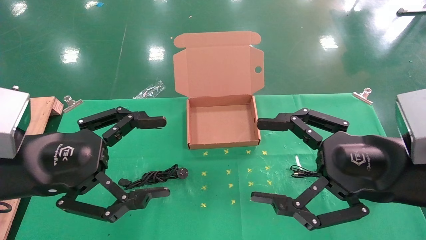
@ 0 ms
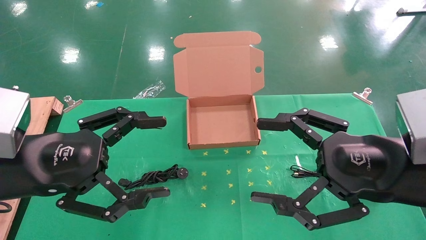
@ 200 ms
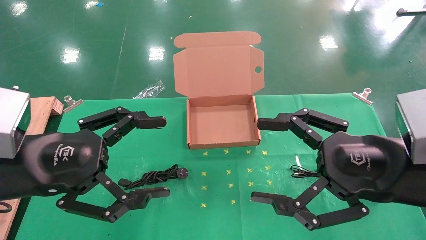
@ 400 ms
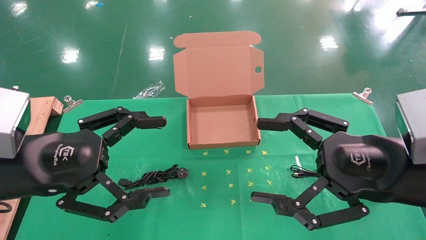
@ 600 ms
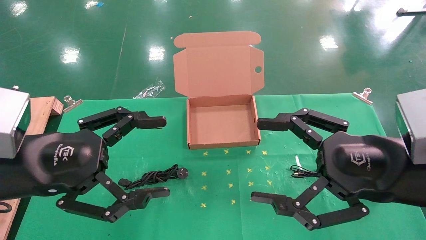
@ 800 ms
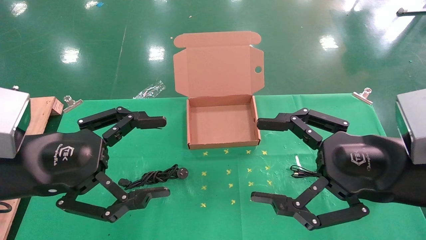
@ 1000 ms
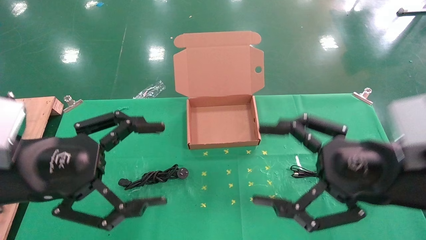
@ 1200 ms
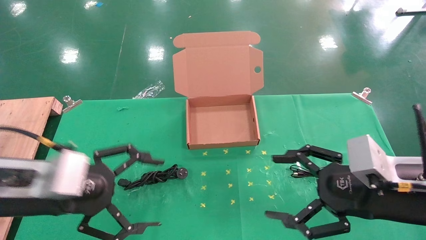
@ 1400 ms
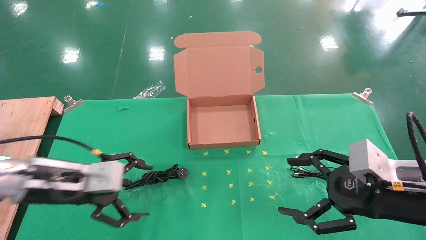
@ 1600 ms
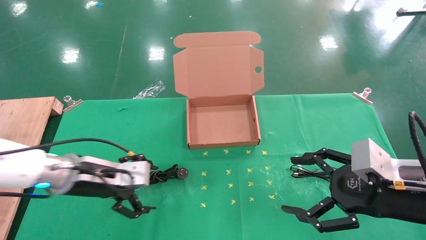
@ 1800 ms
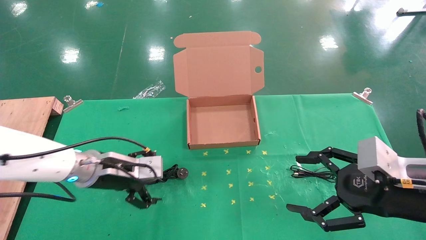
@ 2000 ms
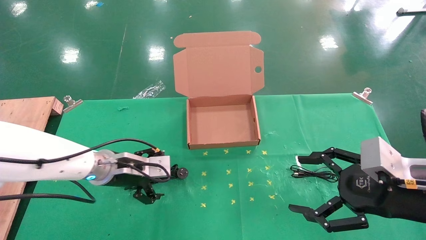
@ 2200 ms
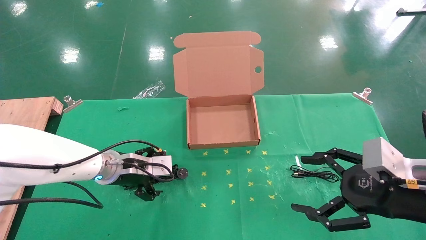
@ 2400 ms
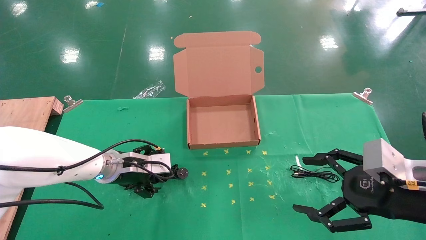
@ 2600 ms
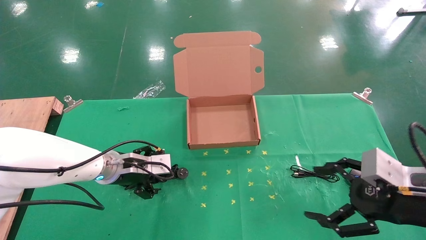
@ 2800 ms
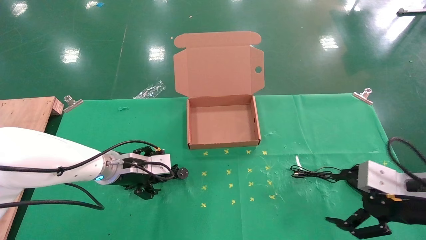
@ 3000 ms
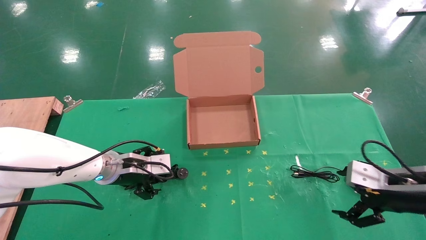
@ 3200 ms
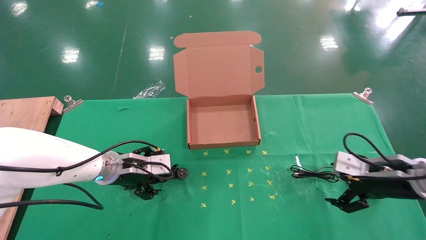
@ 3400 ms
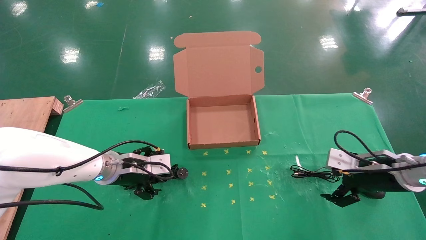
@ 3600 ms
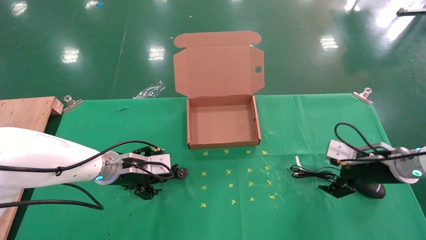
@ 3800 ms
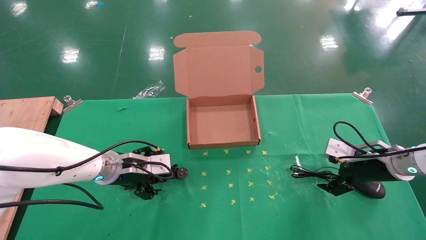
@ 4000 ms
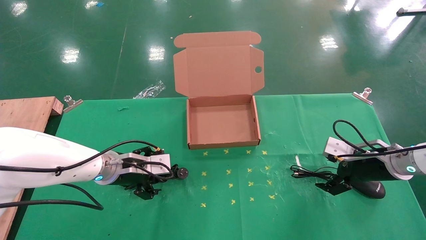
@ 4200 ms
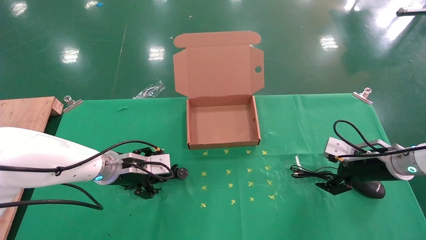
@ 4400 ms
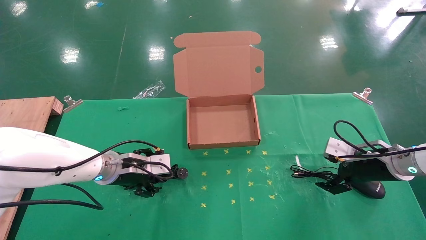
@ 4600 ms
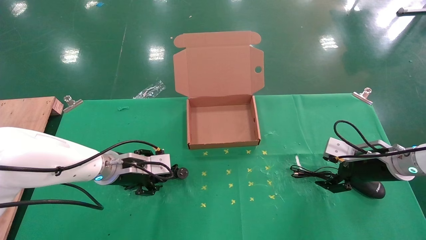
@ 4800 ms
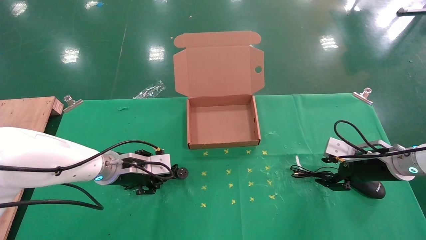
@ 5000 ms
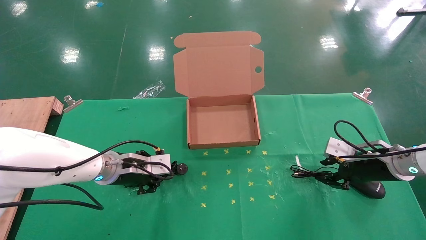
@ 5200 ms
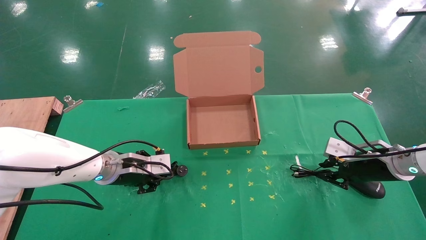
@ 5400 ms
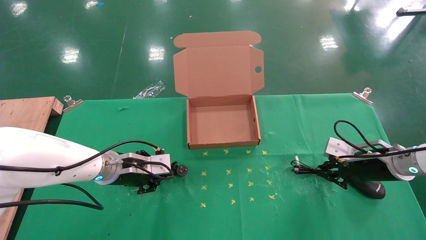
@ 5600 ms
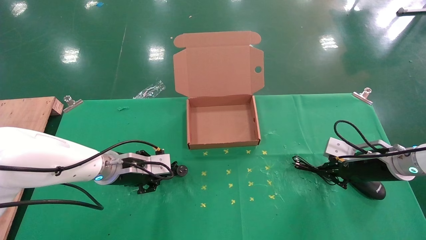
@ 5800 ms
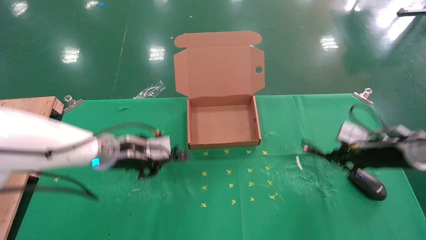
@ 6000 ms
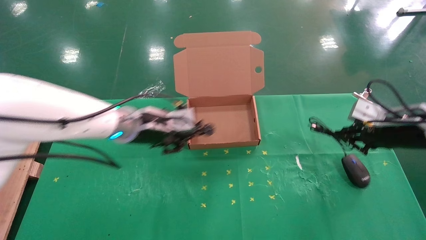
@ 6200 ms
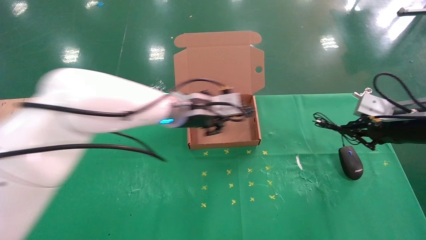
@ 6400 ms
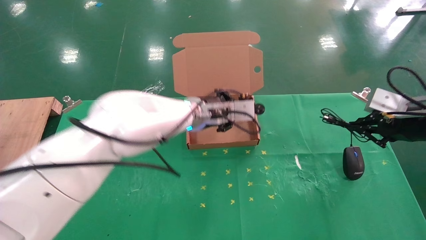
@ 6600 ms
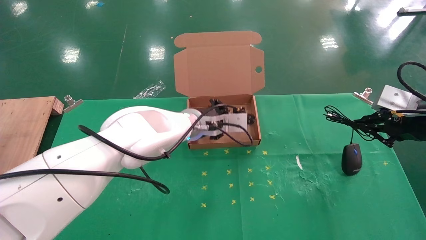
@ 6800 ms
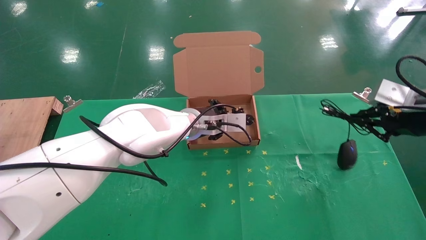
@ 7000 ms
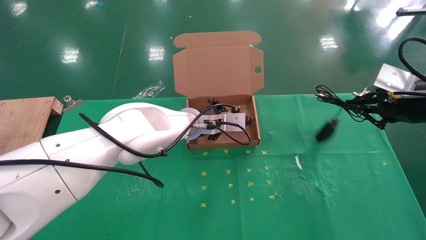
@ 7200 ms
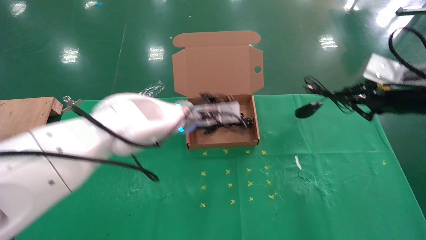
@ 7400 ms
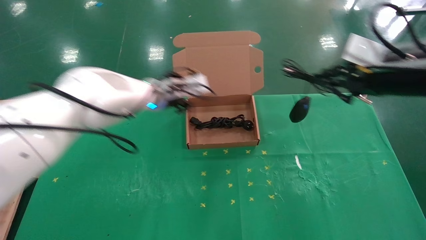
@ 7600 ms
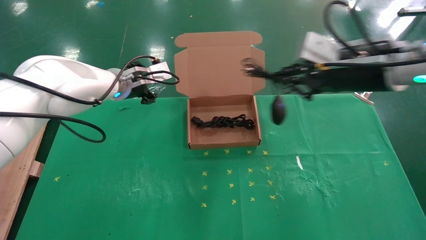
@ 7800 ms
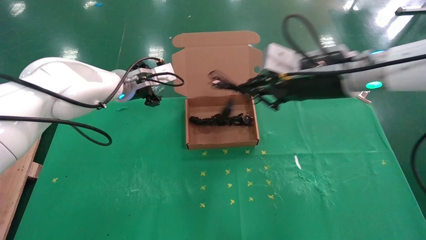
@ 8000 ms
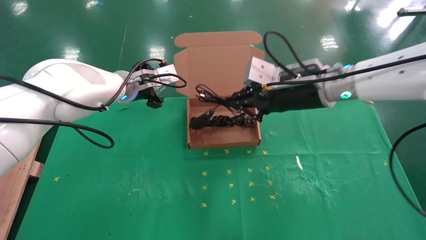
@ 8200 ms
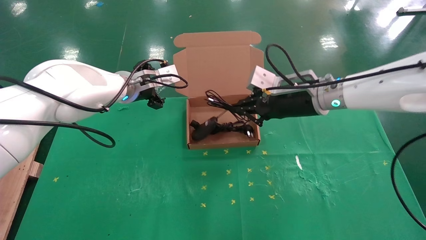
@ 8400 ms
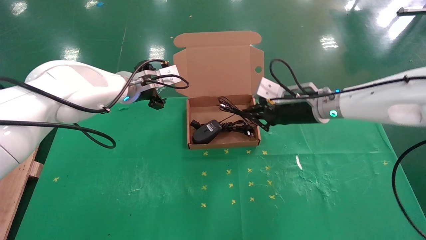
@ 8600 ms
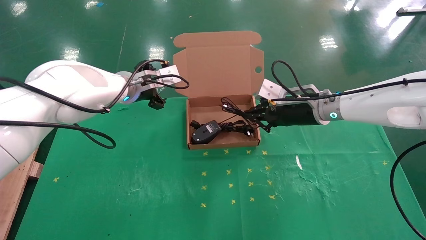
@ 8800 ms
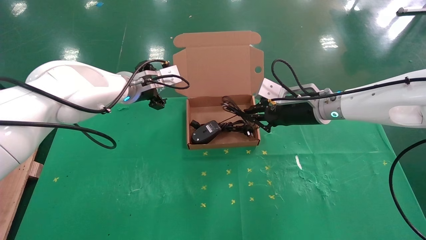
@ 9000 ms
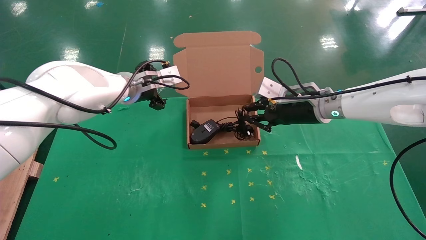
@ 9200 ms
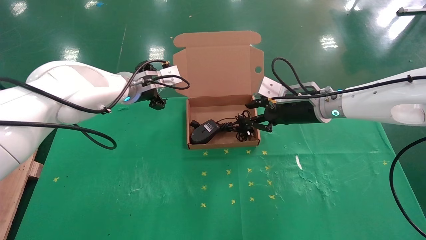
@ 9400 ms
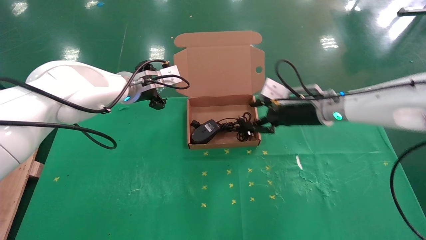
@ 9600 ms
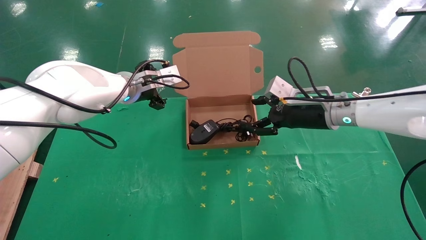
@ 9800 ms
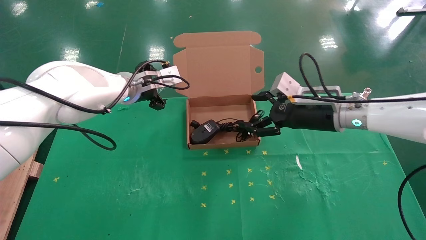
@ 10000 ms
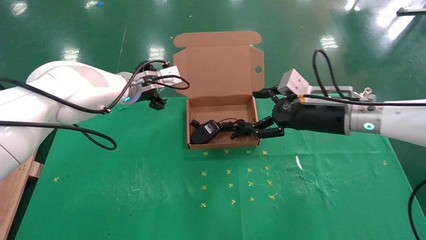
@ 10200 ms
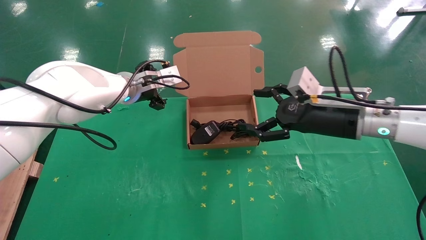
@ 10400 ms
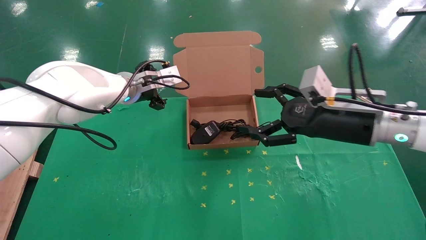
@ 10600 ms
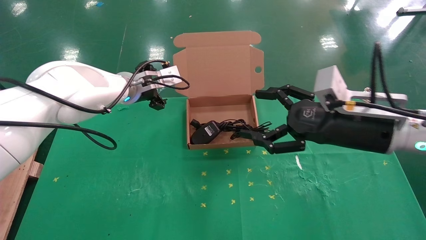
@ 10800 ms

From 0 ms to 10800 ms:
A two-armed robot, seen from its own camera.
Task of the whole recording: grasp data cable left put into box grasp mouse right put into box.
Step, from 1400 ms to 5600 ms: Simultaneously pick up the mouse and power cord from the accessory packaging area.
Step, from 5800 ms to 9400 ms: Place the mouse and power cord into the box.
From 0 ms to 1600 ms: The left gripper is displaced forward and downward by about 10 cm. The right gripper moves downward, roughly 5 cm.
From 1600 ms to 3000 ms: The right gripper goes roughly 5 cm to the right. Meanwhile the left gripper heads forward, to the right and downward, covering roughly 15 cm.
From 3000 ms to 4600 ms: The right gripper is displaced forward by some 15 cm.
From 4600 ms to 6200 ms: The right gripper is displaced upward by some 10 cm, and closes up, while the left gripper heads upward and to the right, covering some 10 cm, and closes its fingers.
From 6200 ms to 7800 ms: The right gripper goes roughly 20 cm to the left and upward; the left gripper goes roughly 10 cm forward and upward, moves some 10 cm to the right and comes back, and opens.
From 7800 ms to 9200 ms: The right gripper shifts approximately 15 cm downward and forward; the left gripper opens its fingers.
From 9200 ms to 10800 ms: The right gripper moves backward, approximately 15 cm, and opens.

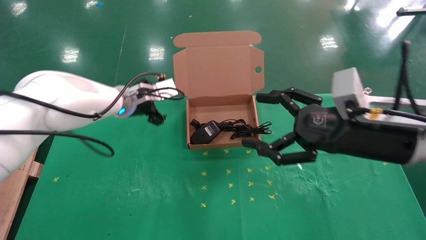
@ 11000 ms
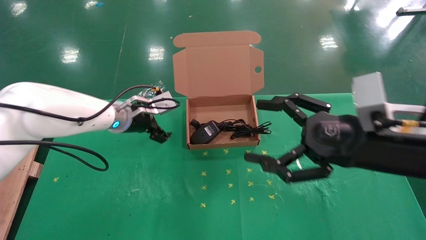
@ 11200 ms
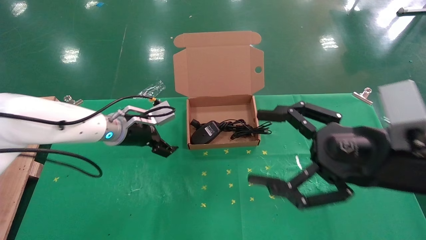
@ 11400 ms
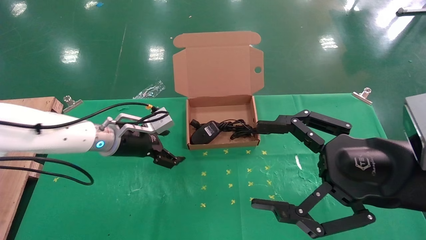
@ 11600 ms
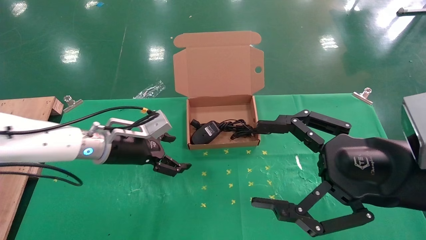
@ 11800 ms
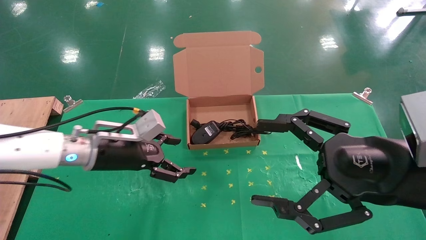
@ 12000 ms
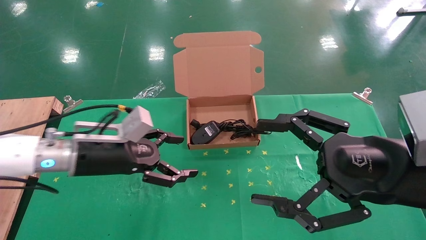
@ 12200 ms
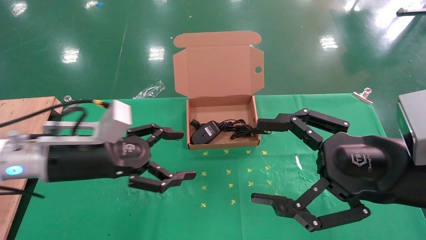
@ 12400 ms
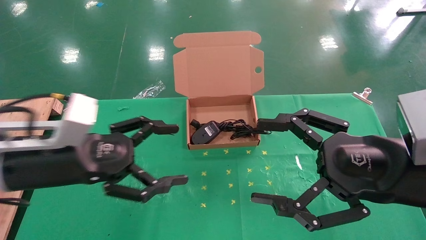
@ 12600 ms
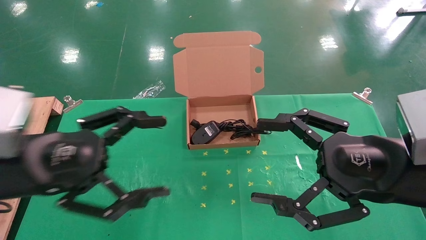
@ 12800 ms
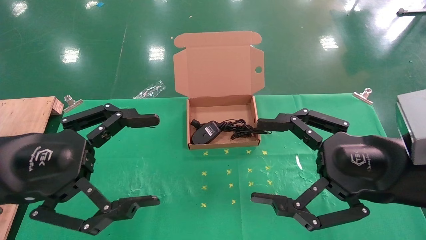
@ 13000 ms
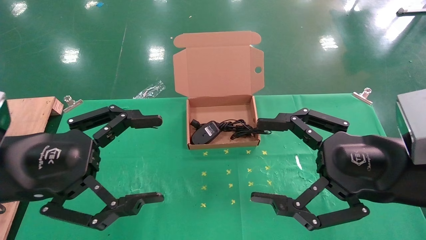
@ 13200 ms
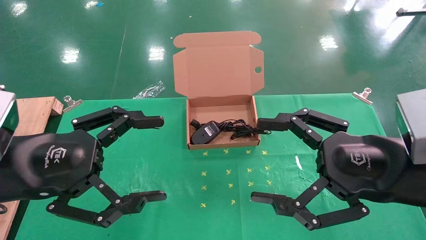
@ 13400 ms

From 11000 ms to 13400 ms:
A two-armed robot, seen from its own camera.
Task of the whole recording: grasp data cable left put into box grasp mouse right put into box.
From 11000 ms to 12200 ms: The left gripper shifts about 15 cm backward. Meanwhile the right gripper goes about 10 cm backward.
From 12200 ms to 13400 ms: The left gripper travels backward and upward by approximately 15 cm.
